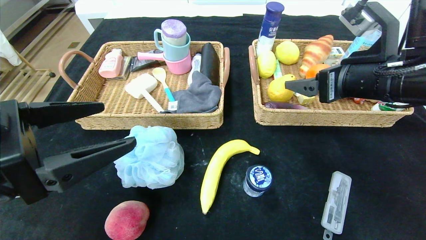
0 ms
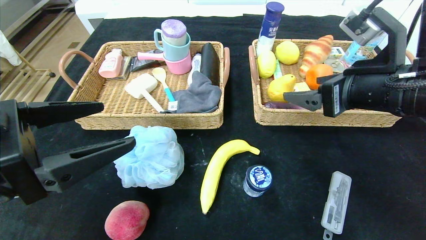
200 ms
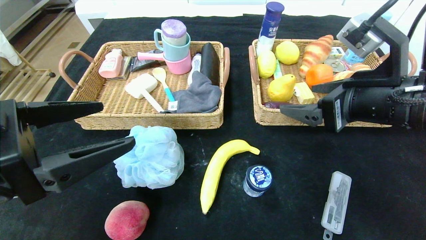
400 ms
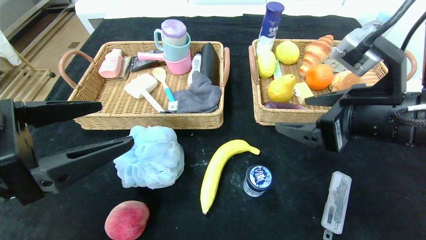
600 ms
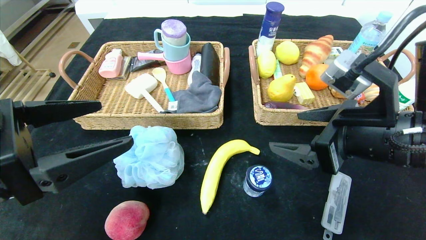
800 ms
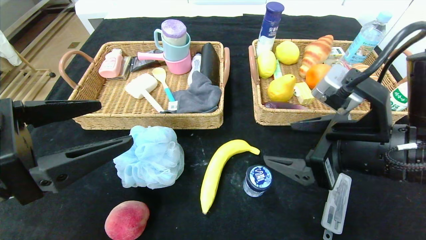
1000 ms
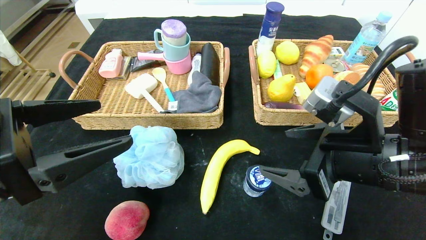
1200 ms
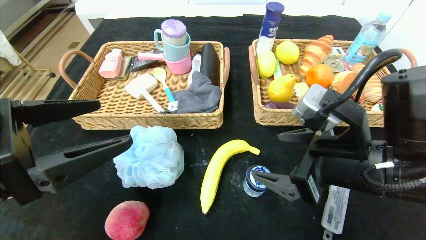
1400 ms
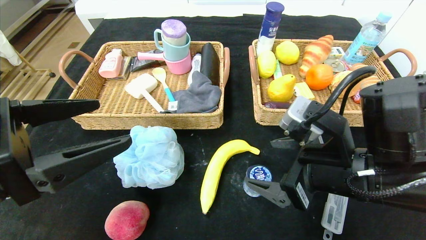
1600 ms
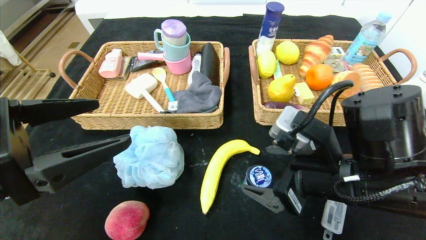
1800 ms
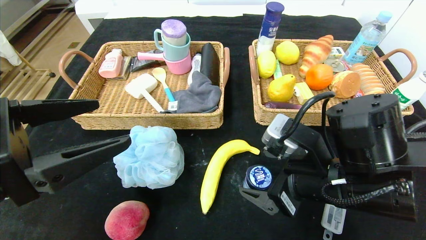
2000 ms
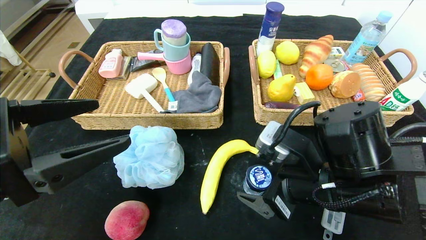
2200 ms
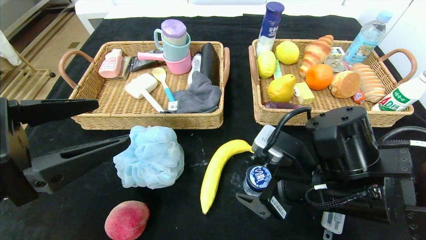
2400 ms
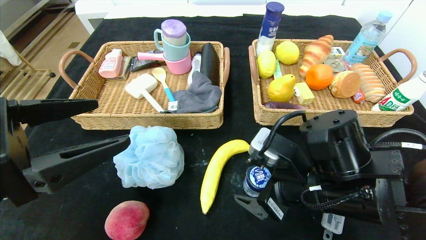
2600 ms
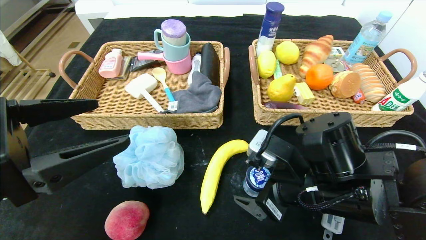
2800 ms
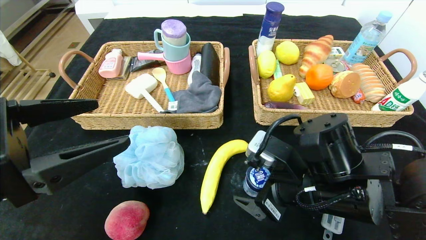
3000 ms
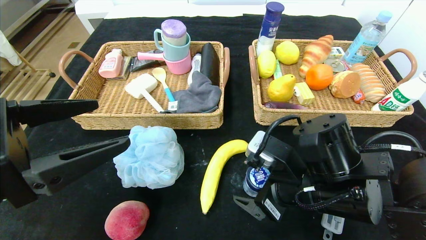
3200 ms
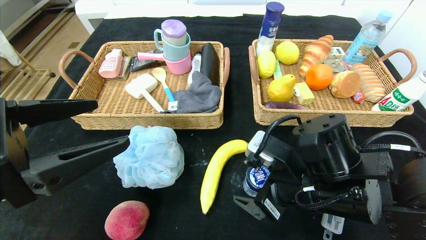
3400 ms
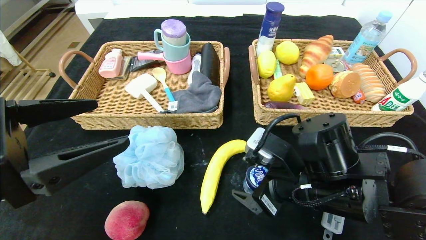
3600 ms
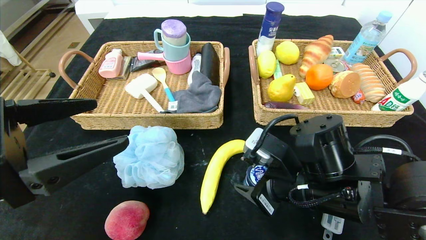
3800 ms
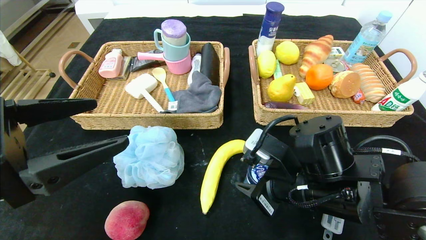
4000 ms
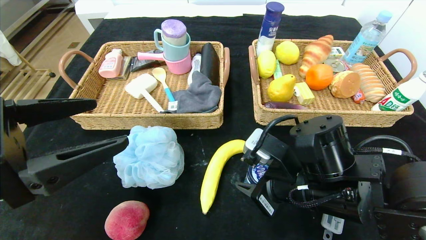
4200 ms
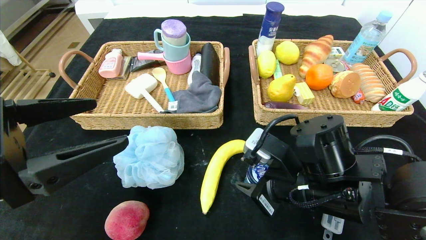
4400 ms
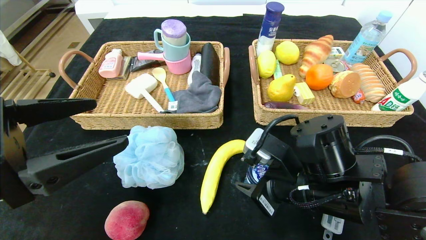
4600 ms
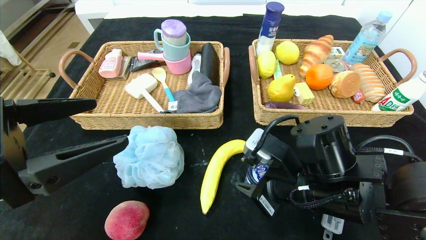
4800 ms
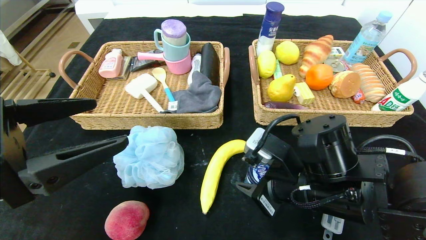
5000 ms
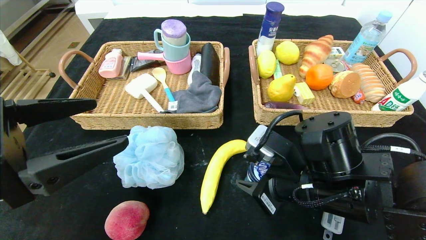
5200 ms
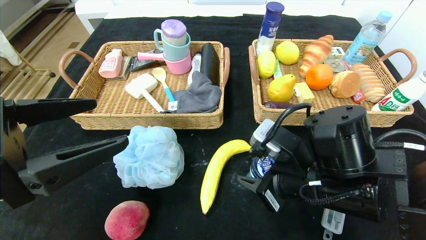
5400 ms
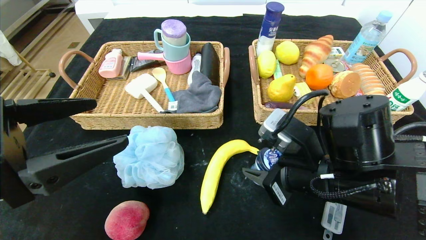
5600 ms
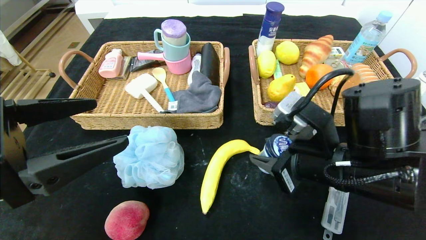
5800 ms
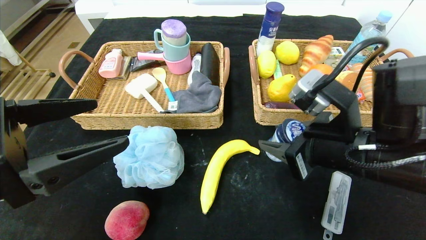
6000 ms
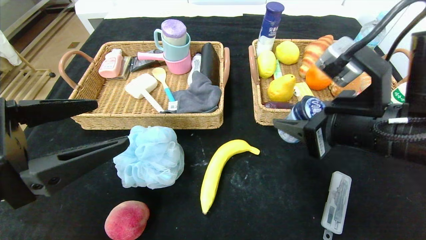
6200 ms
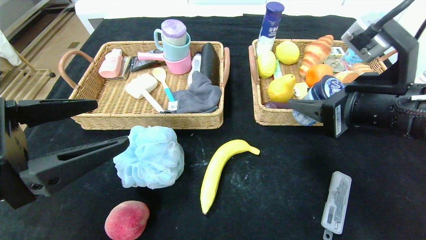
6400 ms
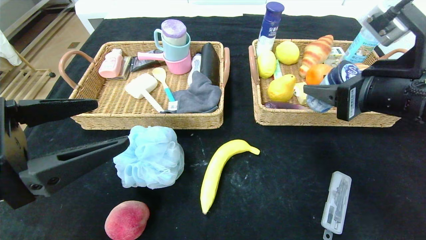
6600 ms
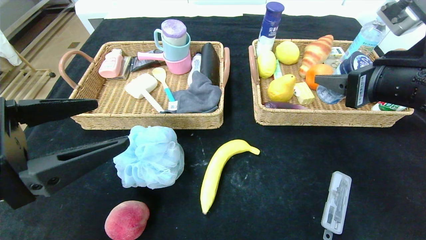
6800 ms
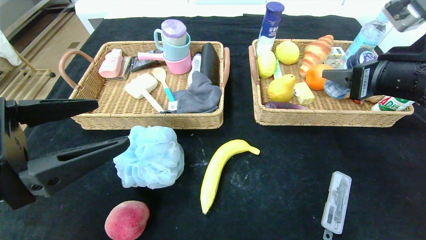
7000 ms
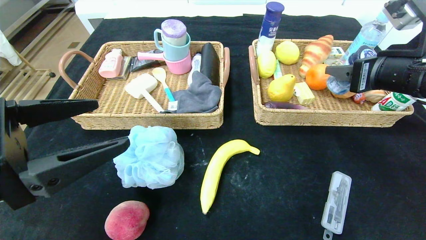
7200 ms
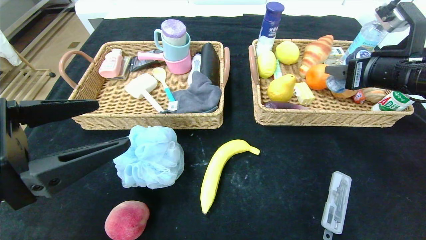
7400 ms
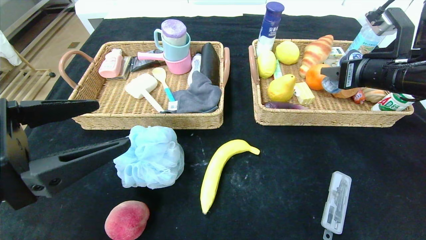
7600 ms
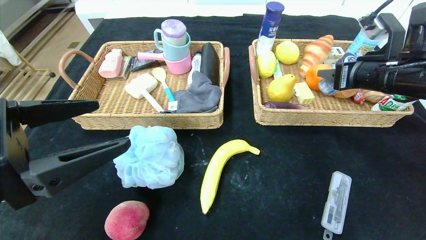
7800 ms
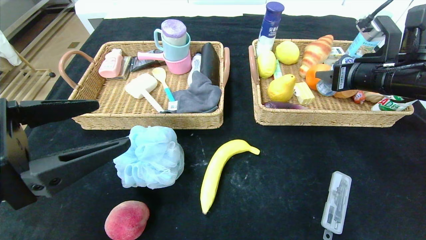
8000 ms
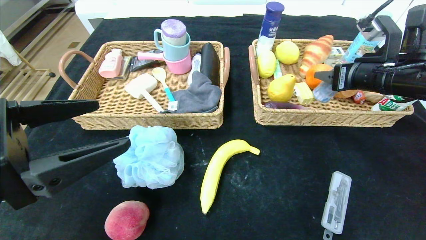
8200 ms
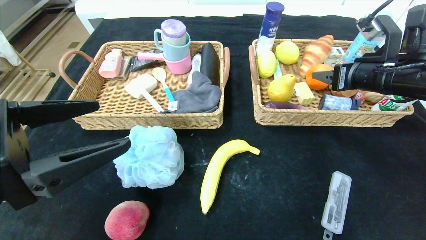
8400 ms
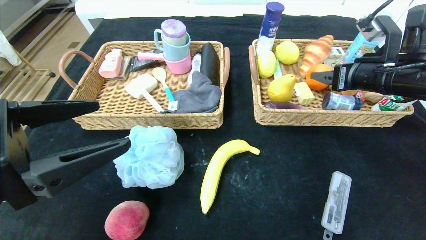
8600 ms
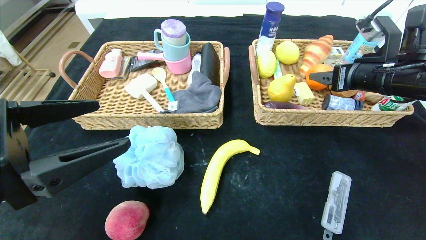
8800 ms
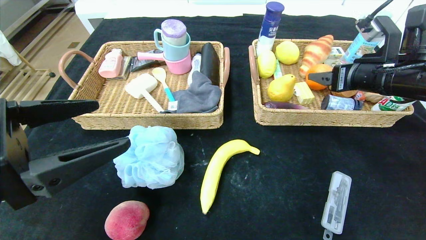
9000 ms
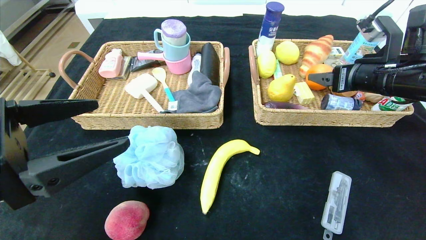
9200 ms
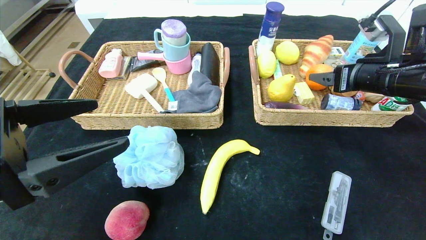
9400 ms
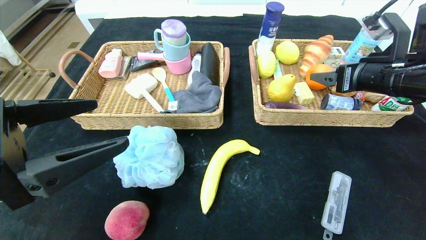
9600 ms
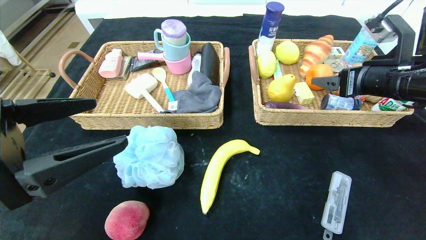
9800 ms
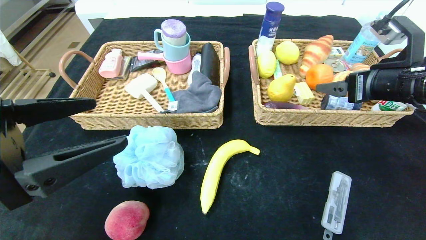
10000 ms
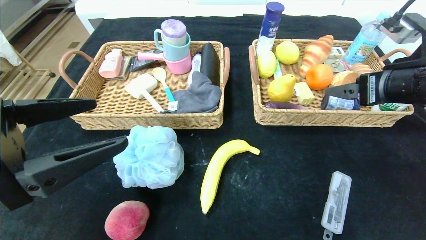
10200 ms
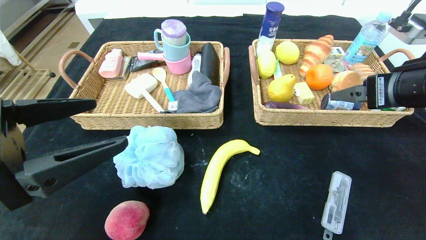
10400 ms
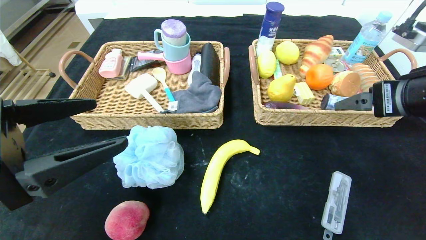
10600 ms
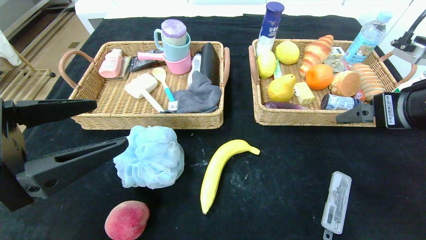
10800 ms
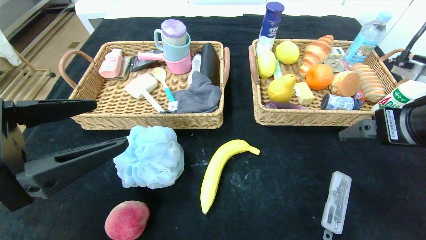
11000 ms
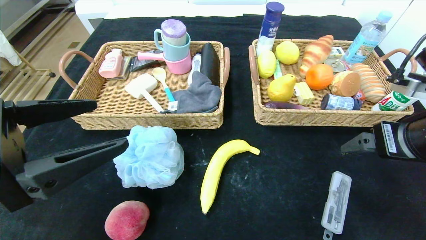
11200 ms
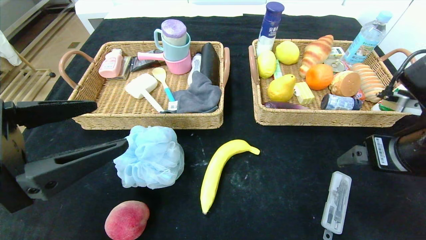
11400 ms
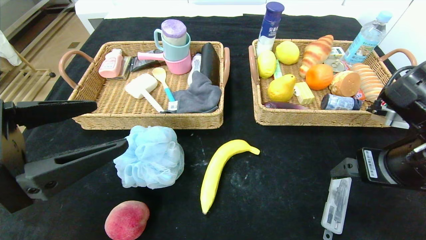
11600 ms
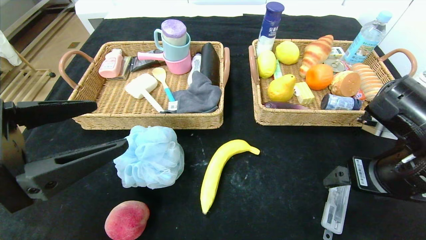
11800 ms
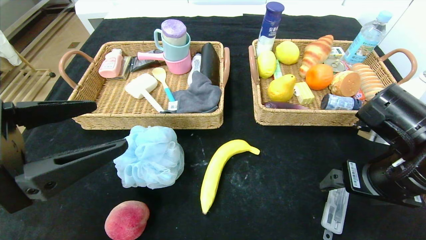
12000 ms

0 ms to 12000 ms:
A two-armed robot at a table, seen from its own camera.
Step, 0 ms to 8400 ms: Grasp the round chewing gum and put it in the right basket.
0 ms to 1600 ms: The right gripper shifts about 15 cm downward, backward and to the left.
1600 ms to 3000 ms: The right gripper changes place by about 5 cm.
3000 ms to 4400 ms: The right gripper closes up.
4400 ms to 6000 ms: The right gripper shifts some 5 cm upward.
6000 ms to 7600 ms: The right gripper travels to the right, forward and upward by roughly 15 cm.
7600 ms to 9000 ms: The right gripper opens its fingers.
9000 ms to 10400 ms: The right gripper shifts about 10 cm backward.
10400 ms to 12000 ms: The right gripper is displaced downward by roughly 10 cm.

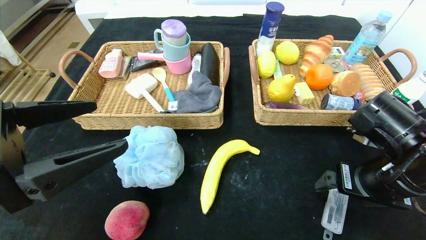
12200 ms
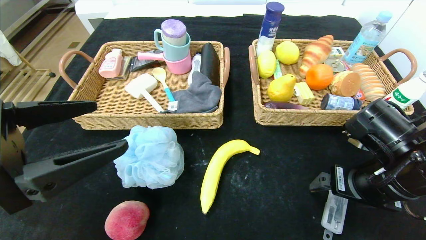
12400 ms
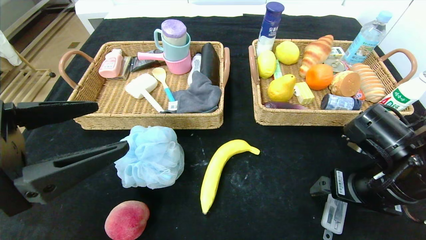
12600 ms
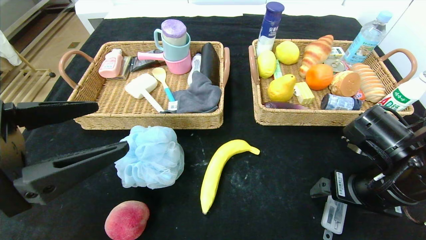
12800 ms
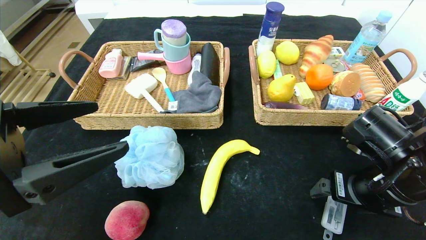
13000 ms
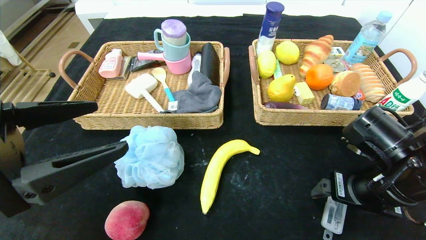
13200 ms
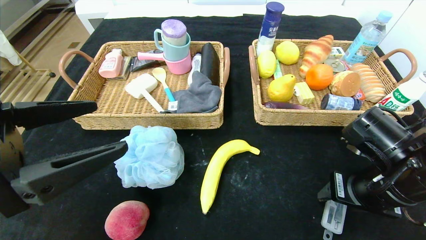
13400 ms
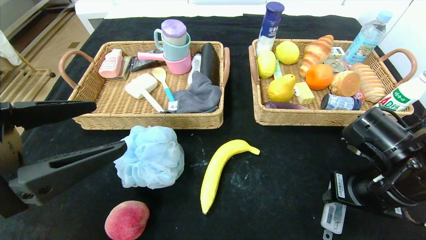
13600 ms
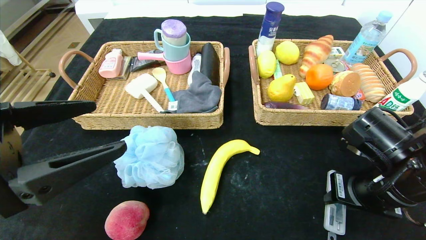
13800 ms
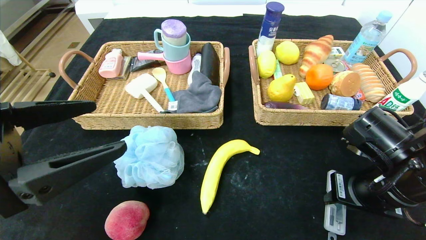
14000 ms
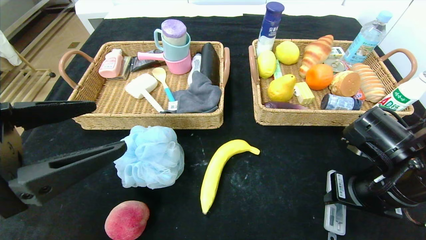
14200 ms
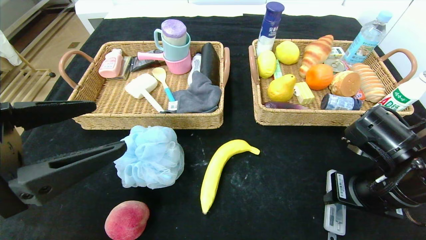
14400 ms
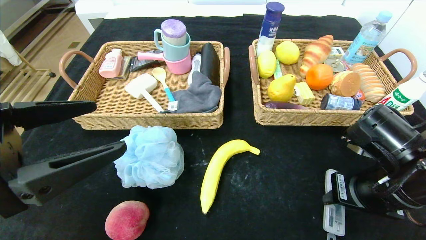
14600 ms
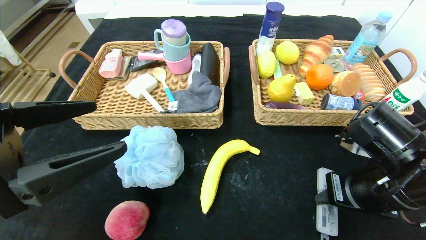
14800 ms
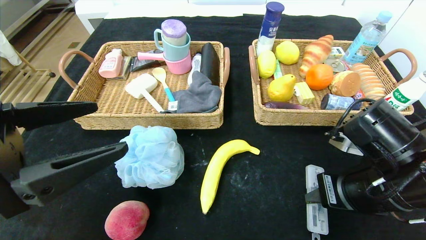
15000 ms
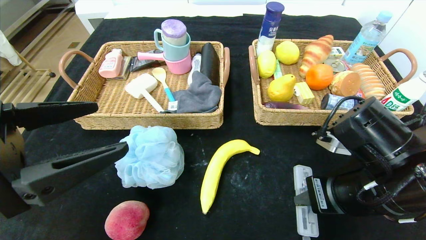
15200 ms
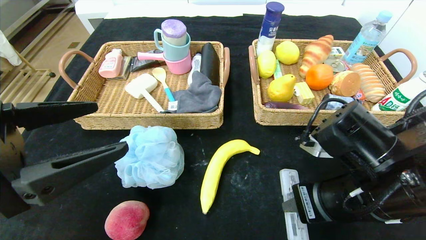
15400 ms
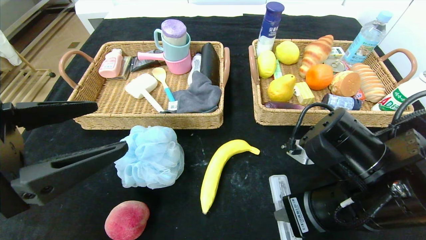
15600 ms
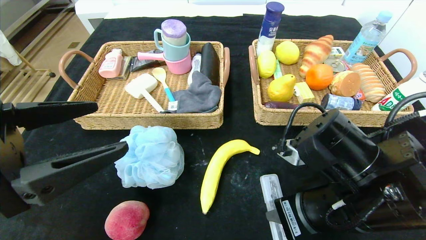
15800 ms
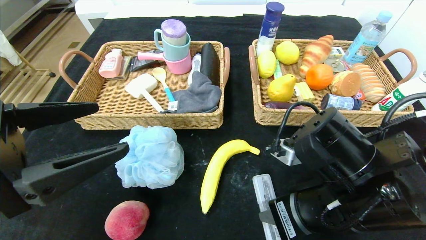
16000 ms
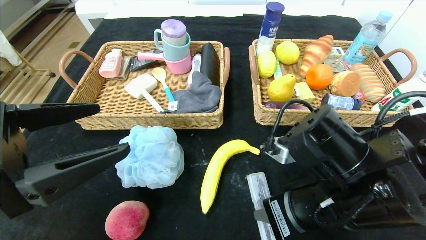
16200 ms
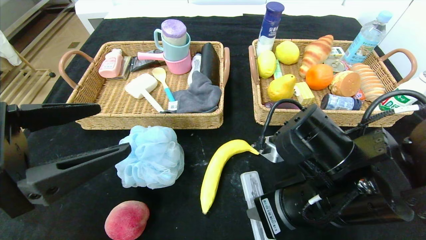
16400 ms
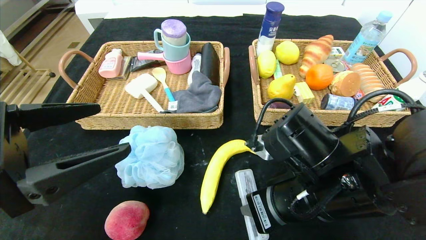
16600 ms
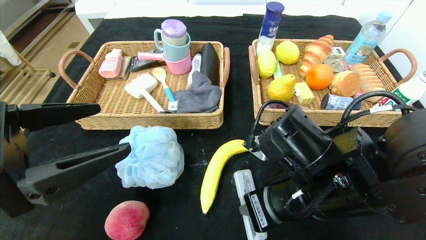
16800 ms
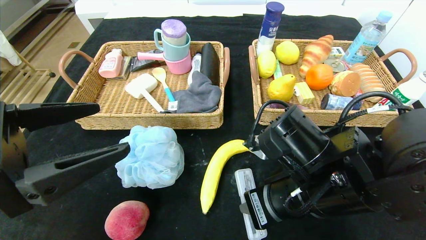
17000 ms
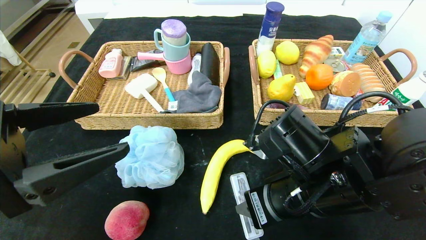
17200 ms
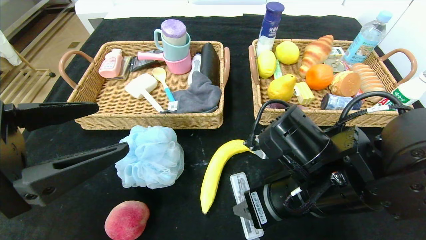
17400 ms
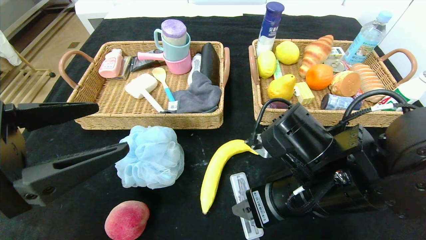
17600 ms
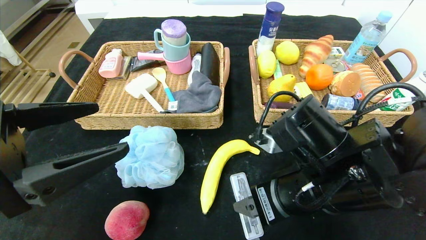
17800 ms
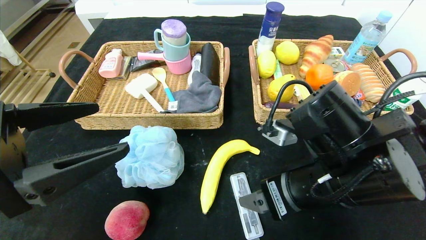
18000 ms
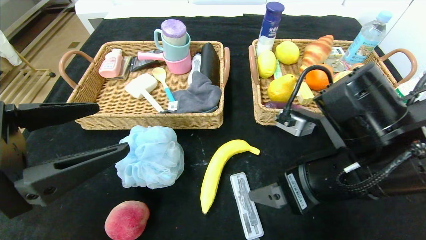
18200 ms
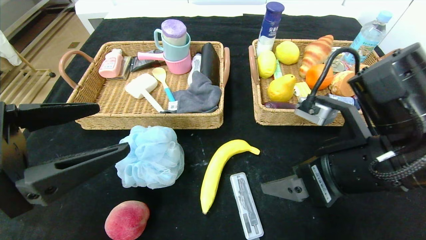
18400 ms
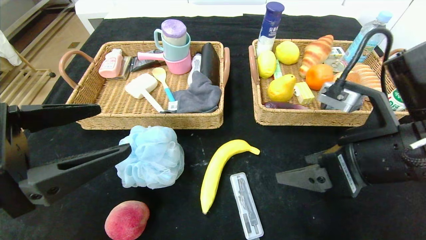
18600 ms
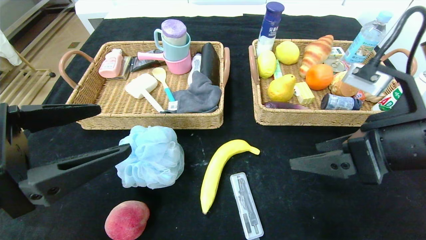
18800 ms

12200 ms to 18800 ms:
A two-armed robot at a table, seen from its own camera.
Step, 12200 ms to 17600 ms: Place the compass in the center of the table.
12200 ms to 13800 ms: The right gripper closes.
13800 ms to 15400 ms: The right gripper travels to the left by roughly 5 cm.
15400 ms to 17200 ms: The right gripper shifts about 5 cm to the left, and opens its fingers.
17200 ms to 18800 ms: The right gripper moves to the right and upward, some 15 cm, and opens up.
